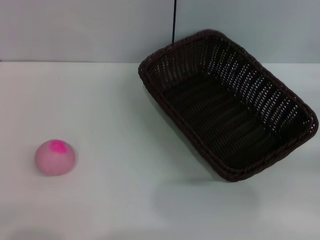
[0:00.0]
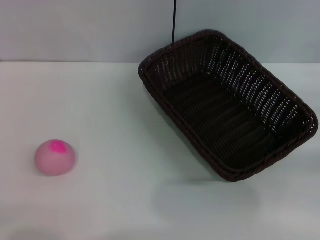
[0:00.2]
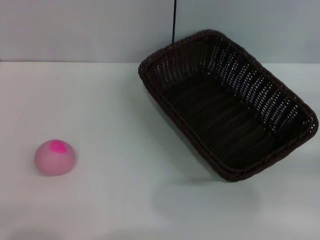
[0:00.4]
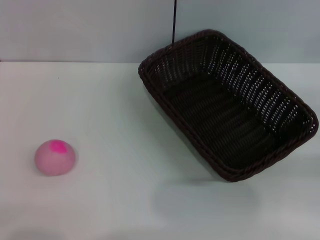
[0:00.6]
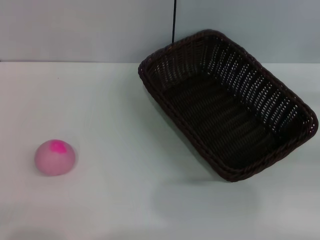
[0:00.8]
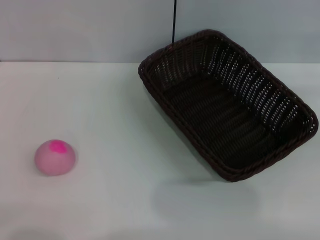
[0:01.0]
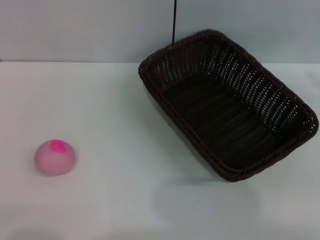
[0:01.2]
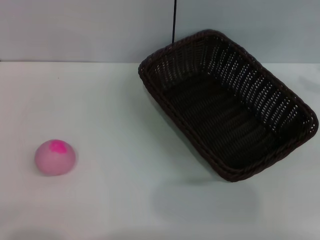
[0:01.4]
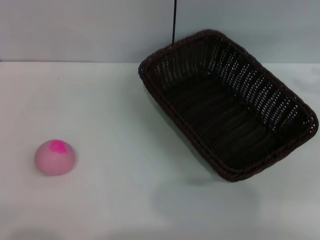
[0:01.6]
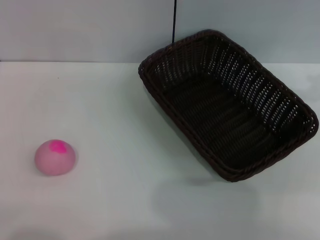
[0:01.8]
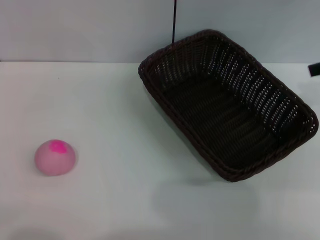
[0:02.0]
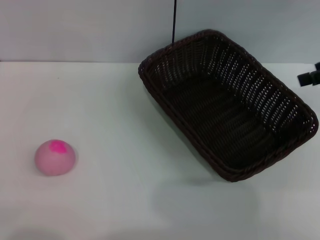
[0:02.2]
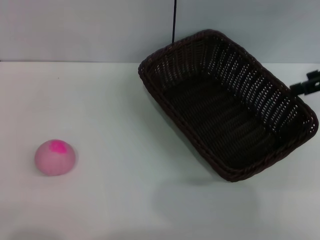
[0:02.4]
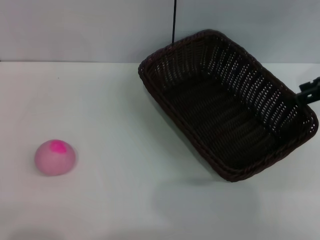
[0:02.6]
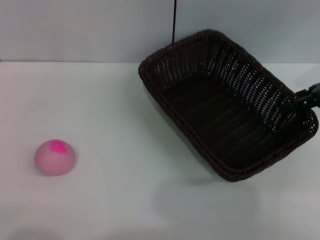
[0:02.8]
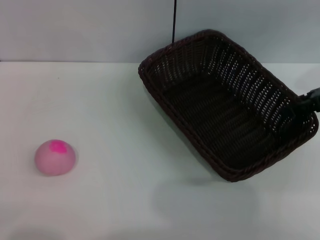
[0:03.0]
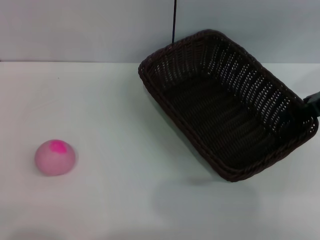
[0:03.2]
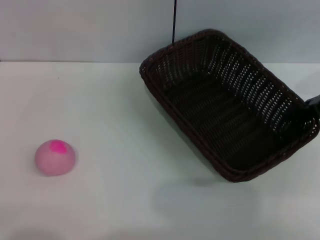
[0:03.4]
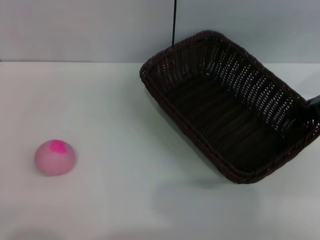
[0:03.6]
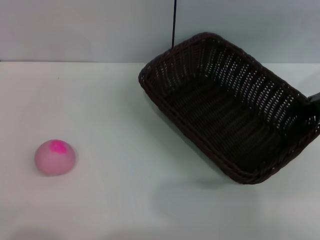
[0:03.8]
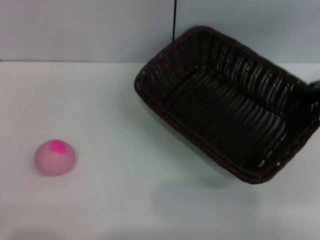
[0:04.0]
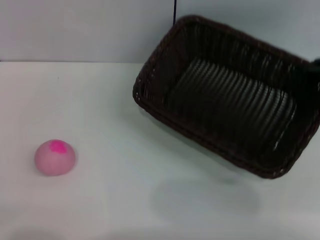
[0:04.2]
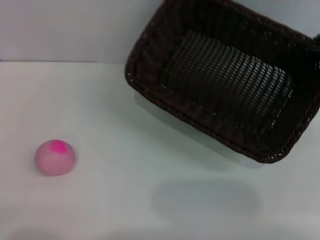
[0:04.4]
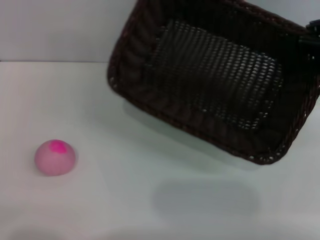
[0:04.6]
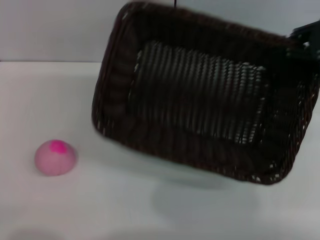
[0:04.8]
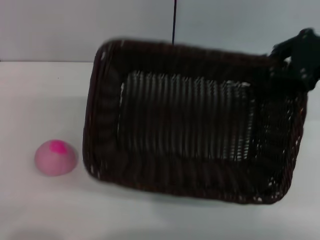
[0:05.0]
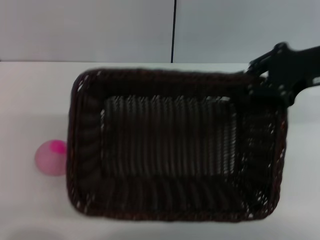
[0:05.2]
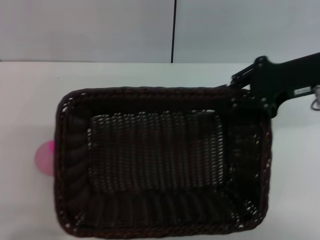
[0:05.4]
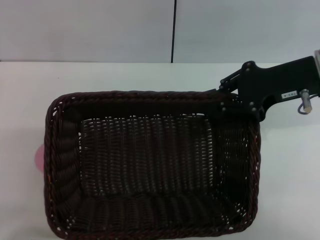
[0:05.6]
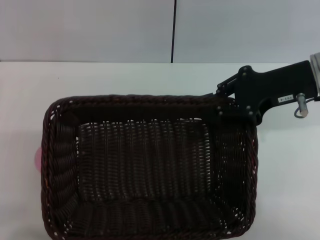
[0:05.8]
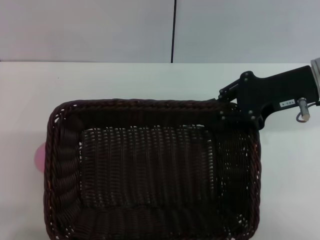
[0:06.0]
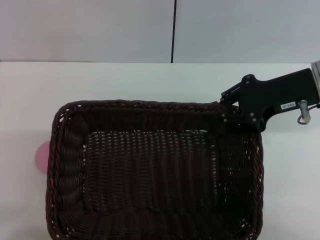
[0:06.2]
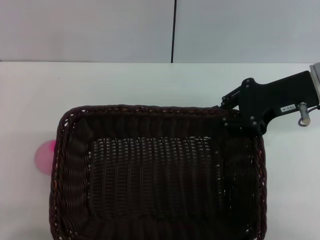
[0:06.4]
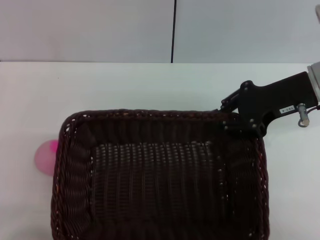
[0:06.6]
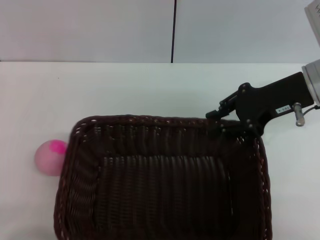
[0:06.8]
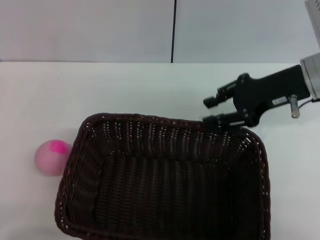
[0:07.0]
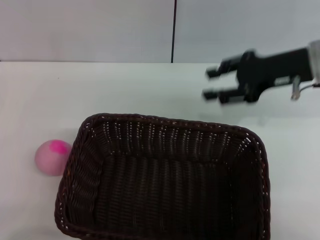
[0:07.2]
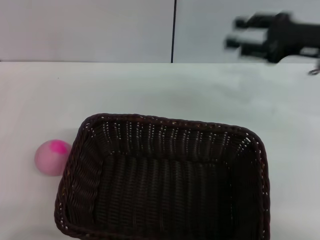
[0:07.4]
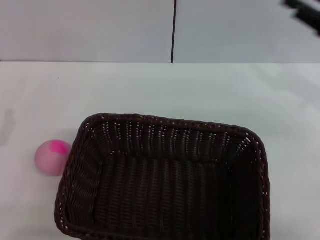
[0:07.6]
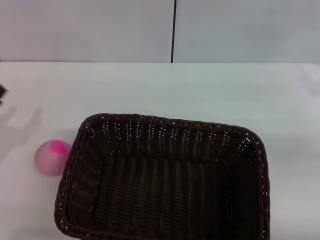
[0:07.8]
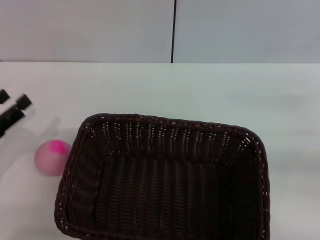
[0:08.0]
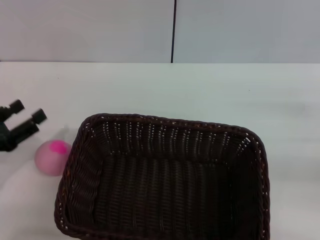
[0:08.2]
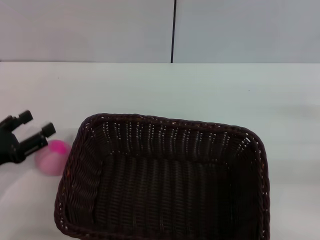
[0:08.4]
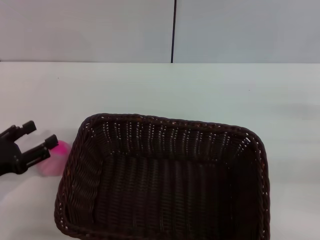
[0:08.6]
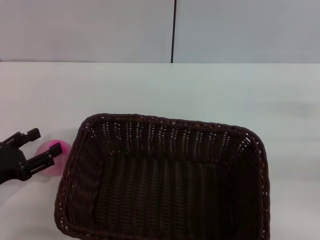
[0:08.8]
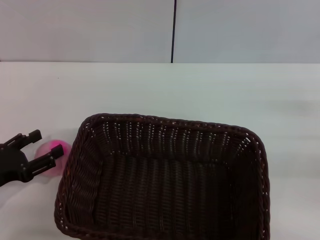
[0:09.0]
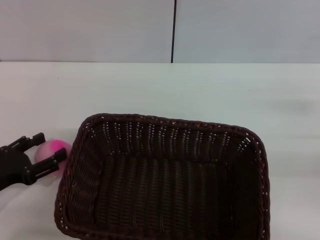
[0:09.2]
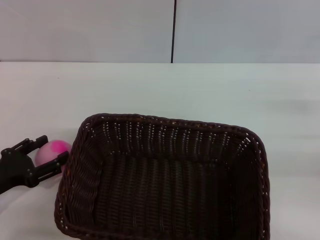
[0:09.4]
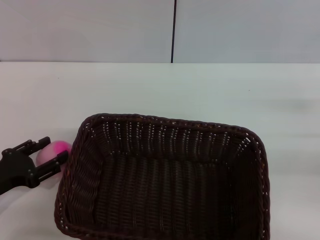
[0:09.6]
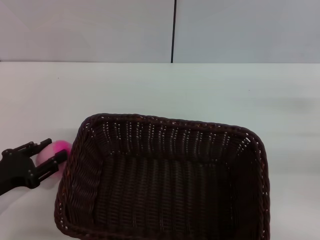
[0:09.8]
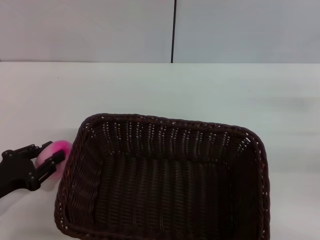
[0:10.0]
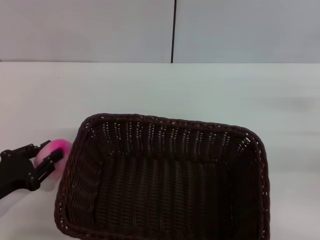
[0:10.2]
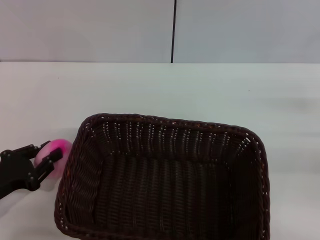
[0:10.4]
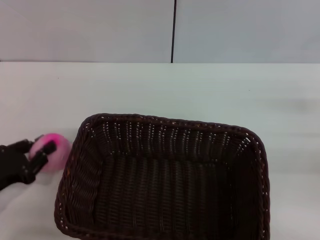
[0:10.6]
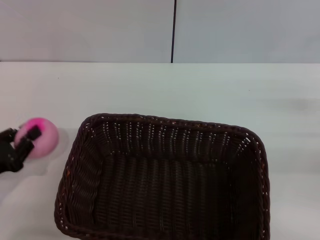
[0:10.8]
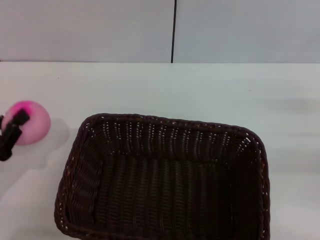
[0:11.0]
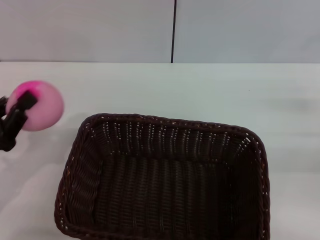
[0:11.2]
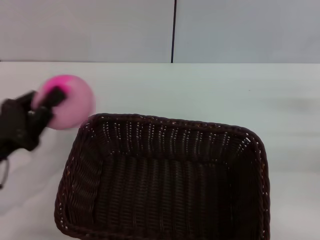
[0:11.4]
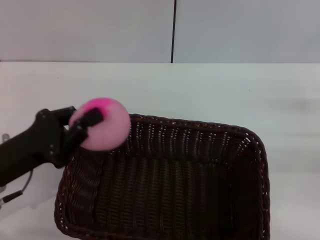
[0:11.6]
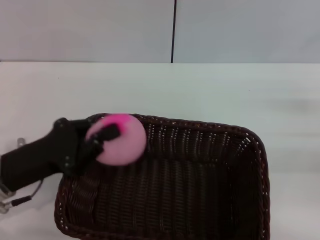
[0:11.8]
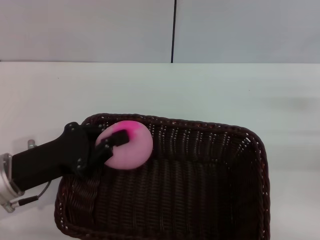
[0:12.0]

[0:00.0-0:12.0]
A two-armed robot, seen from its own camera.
Step, 0:00.0 to 0:04.0: Pick up the dark basket with the right gripper.
Step, 0:04.2 to 0:07.0: Place the dark basket in the center of view with the right gripper.
Step, 0:07.2 to 0:11.0: Pick up the peach with the left gripper.
0:00.0 to 0:01.6: The right gripper heads upward, covering about 20 cm.
0:03.0 to 0:04.4: The right gripper closes its fingers.
0:04.4 to 0:06.0: The right gripper travels to the left by about 10 cm.
0:06.0 to 0:07.6: The right gripper goes approximately 10 cm to the right, and opens.
0:07.6 to 0:09.0: The right gripper moves backward, downward and to the right, roughly 10 cm.
0:09.0 to 0:10.4: The left gripper closes.
0:10.4 to 0:12.0: The left gripper shifts approximately 10 cm to the right and upward.

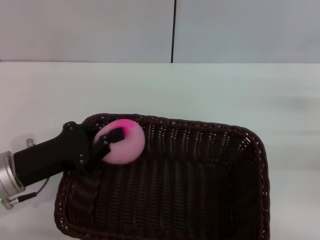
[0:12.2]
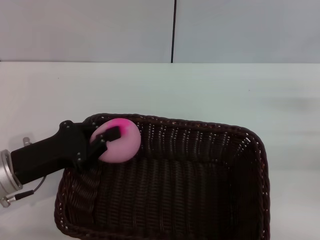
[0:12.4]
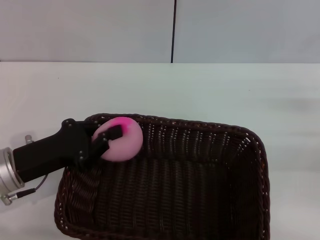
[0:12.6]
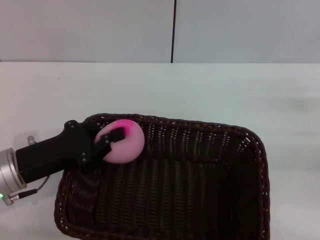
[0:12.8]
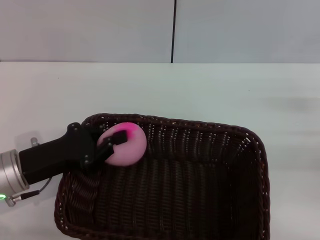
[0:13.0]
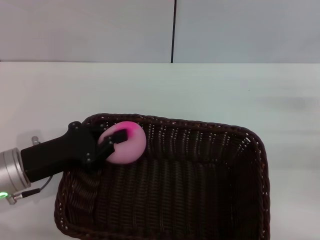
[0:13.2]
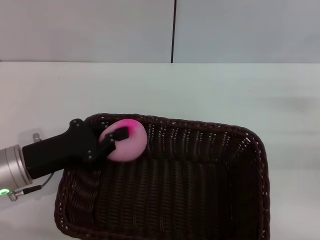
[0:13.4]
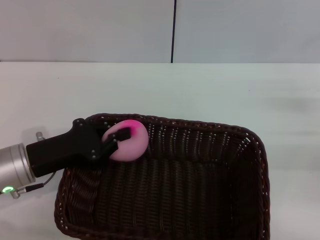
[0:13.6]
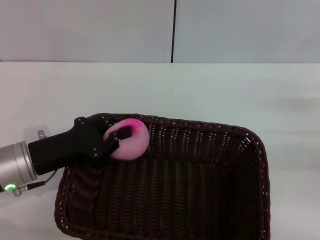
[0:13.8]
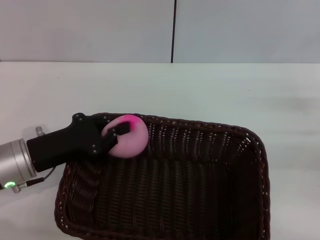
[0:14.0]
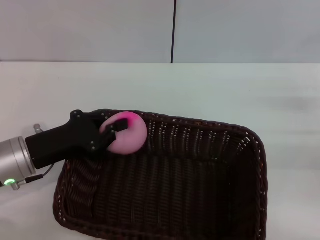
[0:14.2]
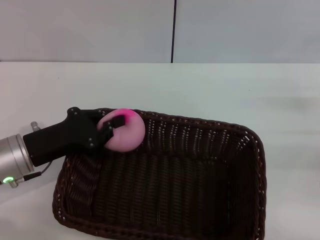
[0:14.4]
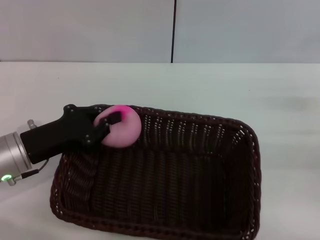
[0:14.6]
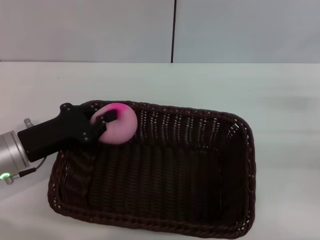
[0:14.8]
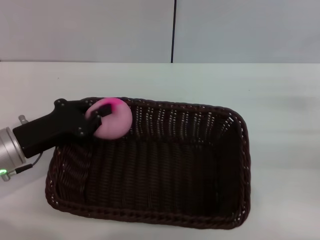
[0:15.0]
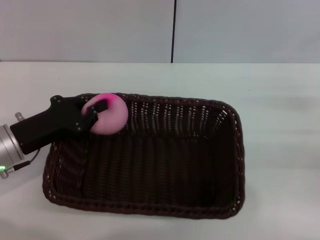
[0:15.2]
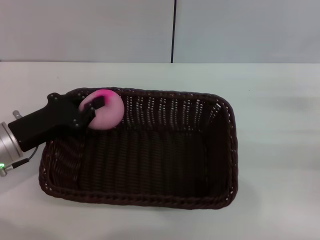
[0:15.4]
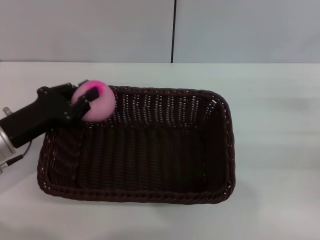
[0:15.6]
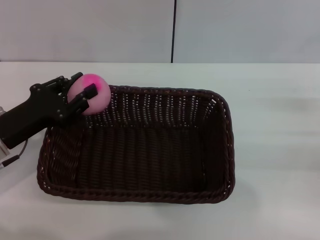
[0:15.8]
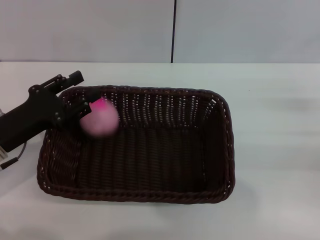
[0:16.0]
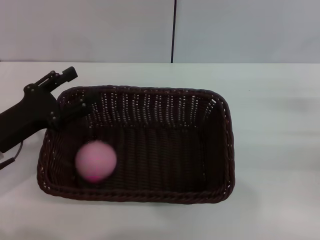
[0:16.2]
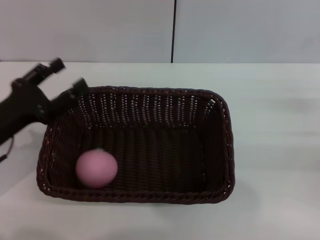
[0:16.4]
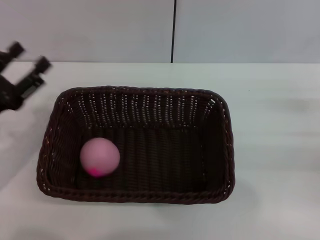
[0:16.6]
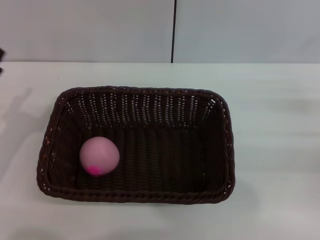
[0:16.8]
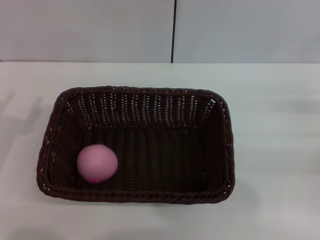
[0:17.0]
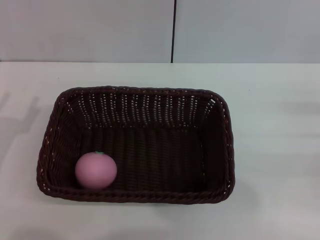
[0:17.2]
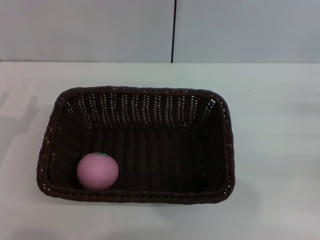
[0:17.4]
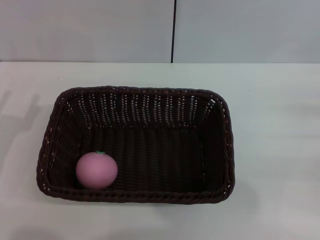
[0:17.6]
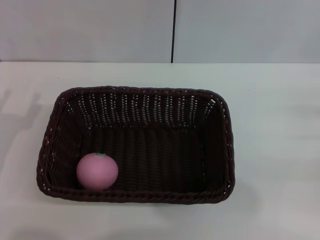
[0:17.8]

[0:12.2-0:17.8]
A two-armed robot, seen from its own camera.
Step, 0:12.2 to 0:16.2: Place the peach into the basket with the left gripper.
0:12.2 to 0:15.0: The grippers make only small movements.
0:15.0 to 0:16.4: The left gripper opens.
0:16.4 to 0:17.8: The left gripper moves some 5 cm.
